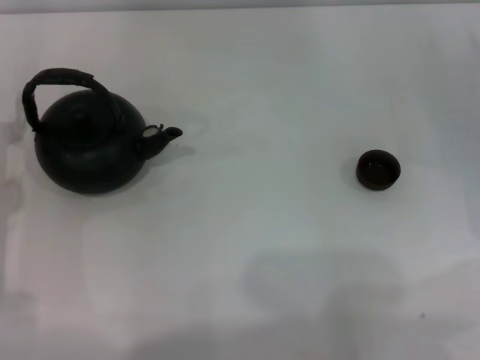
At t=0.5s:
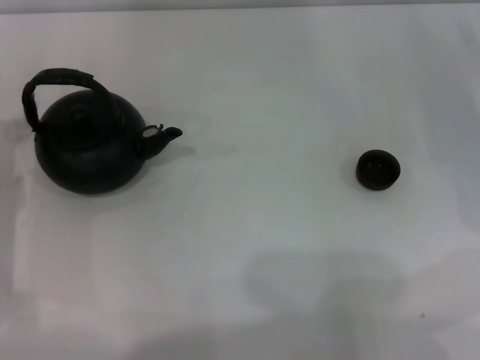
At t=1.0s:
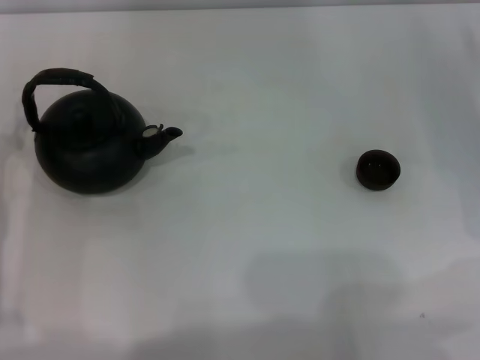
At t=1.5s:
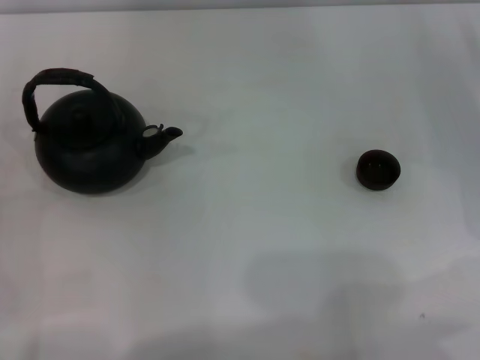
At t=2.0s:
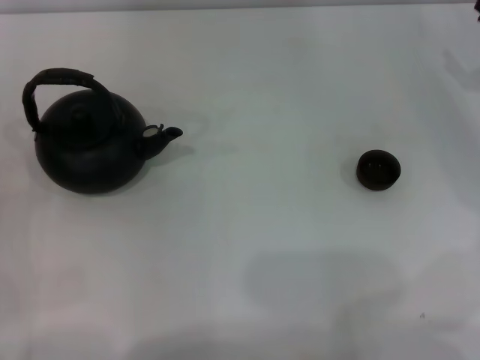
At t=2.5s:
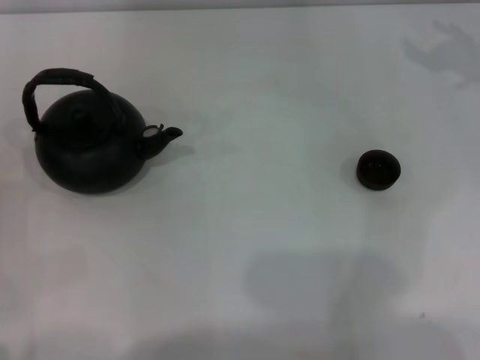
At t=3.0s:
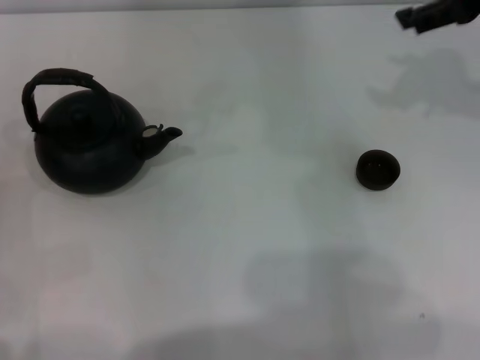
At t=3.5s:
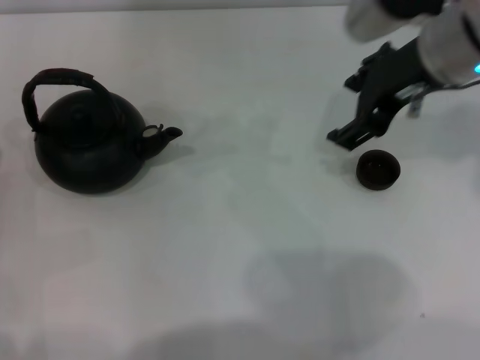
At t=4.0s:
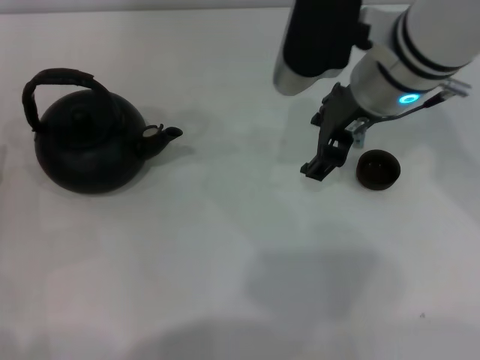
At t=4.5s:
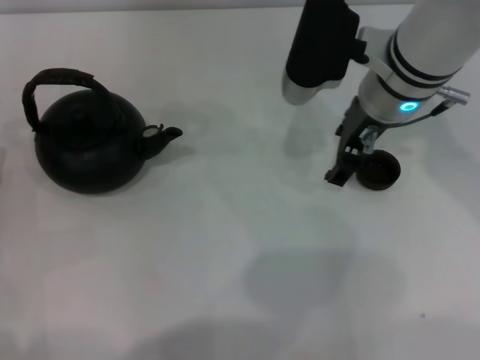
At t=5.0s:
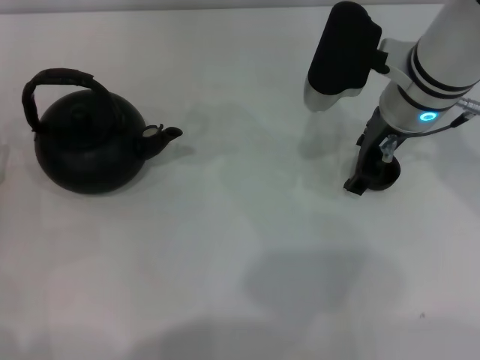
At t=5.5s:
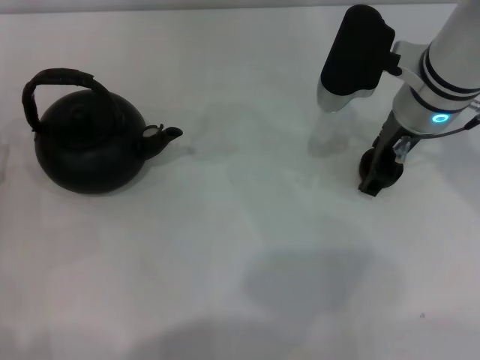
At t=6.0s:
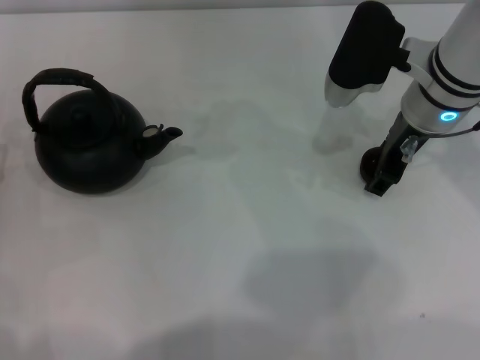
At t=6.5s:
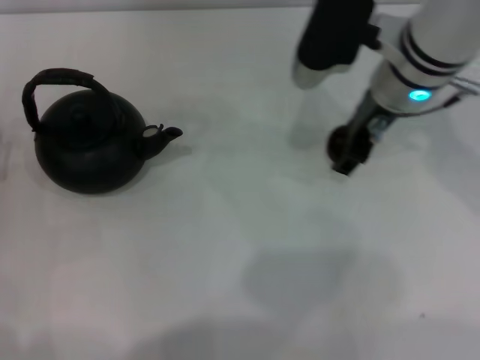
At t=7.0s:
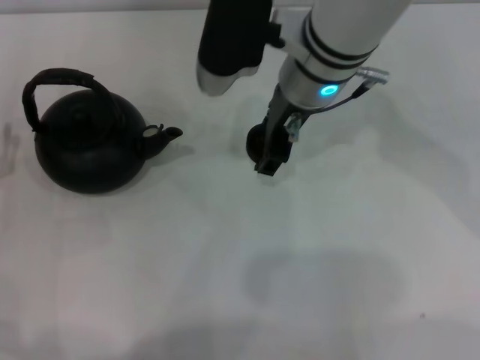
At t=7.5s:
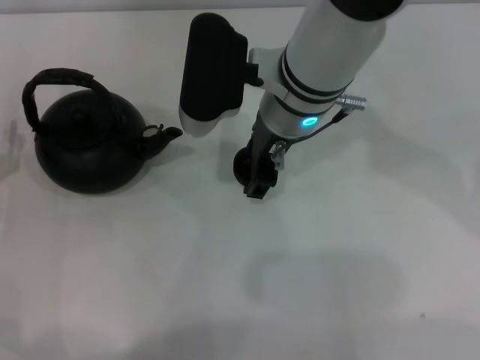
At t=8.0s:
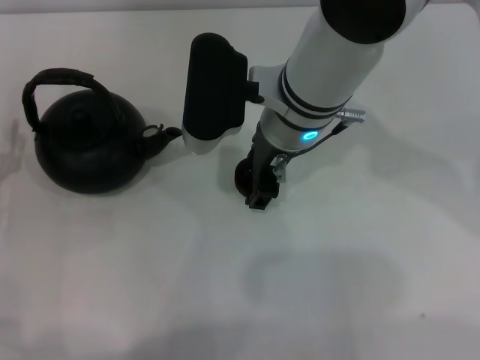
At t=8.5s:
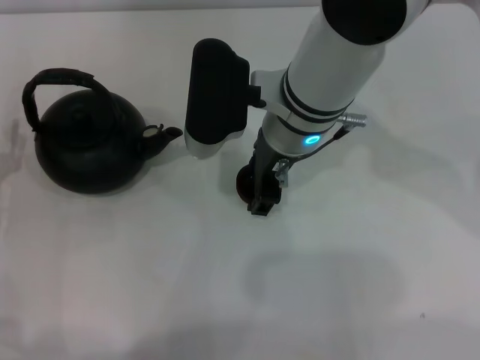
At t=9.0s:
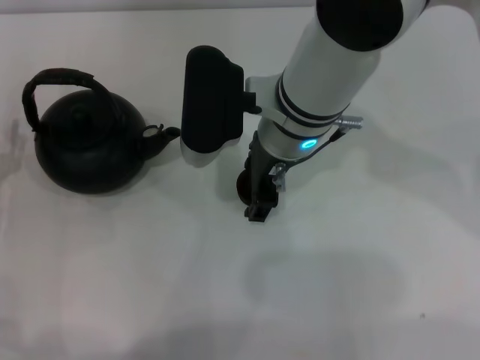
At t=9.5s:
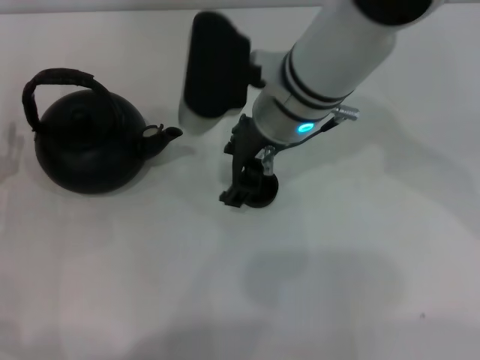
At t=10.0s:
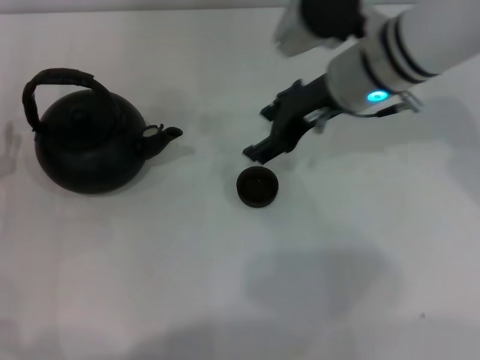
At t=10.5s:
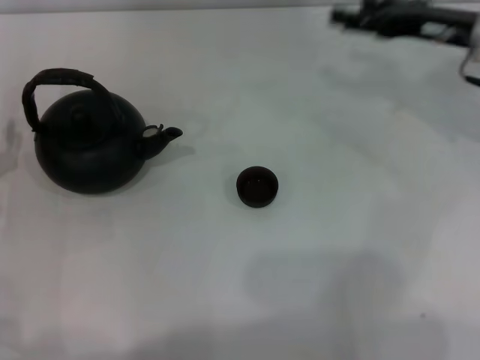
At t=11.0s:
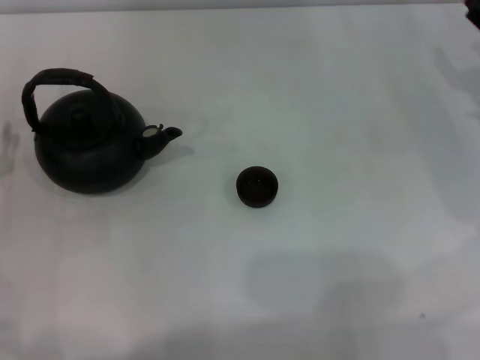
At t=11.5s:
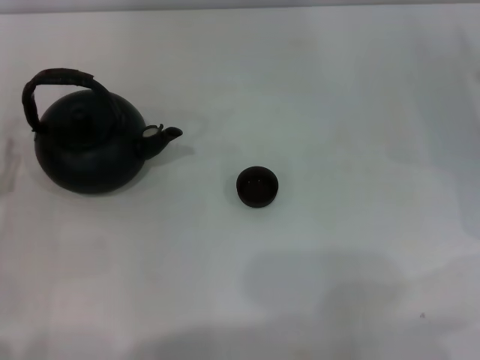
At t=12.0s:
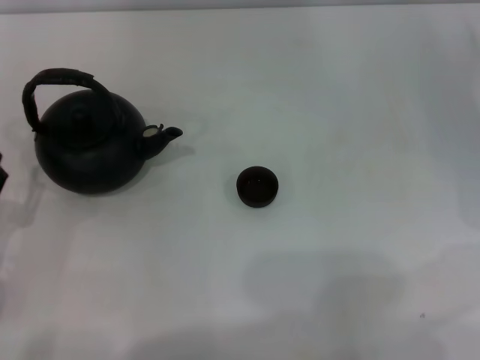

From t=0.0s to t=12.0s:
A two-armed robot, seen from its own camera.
Task of the whole recording: Grasp the handle of the teapot with one hand and pour tea into the teacup.
Step, from t=0.0s to t=6.0s: Pick up the teacup with the right gripper.
Step, from t=6.5s to t=9.5s: Place the teacup in the center of view with the right gripper.
From t=2.0s to t=4.0s: The right gripper travels to the left by roughly 25 cm.
From t=4.0s to t=6.0s: The right gripper is displaced to the right by some 5 cm.
From t=6.0s to t=8.0s: The right gripper is displaced to the left by some 15 cm.
From t=8.0s to t=10.0s: The right gripper goes approximately 10 cm to the right.
From t=10.0s to t=12.0s: The right gripper shifts some 25 cm to the right and downward; the left gripper travels backward by some 5 cm.

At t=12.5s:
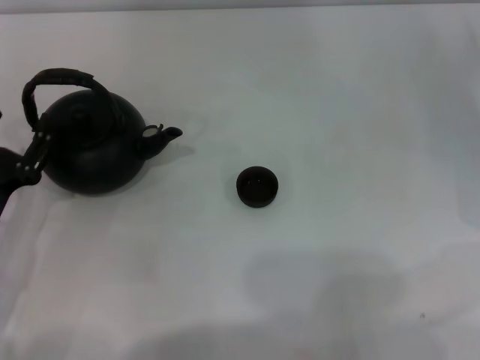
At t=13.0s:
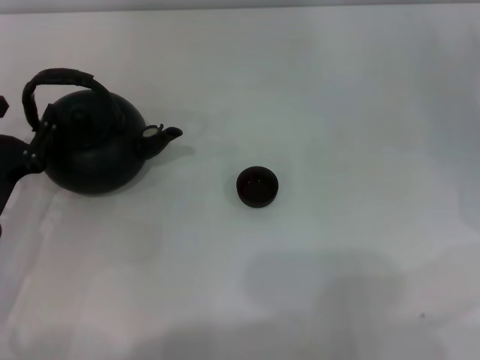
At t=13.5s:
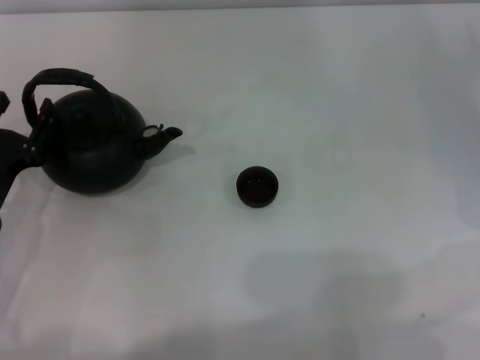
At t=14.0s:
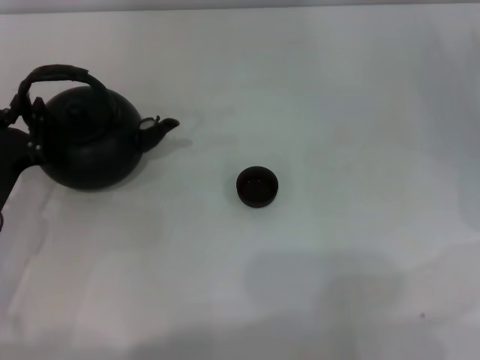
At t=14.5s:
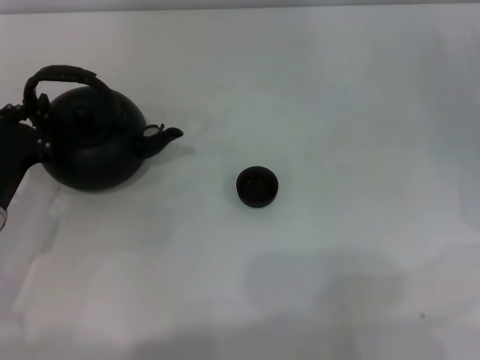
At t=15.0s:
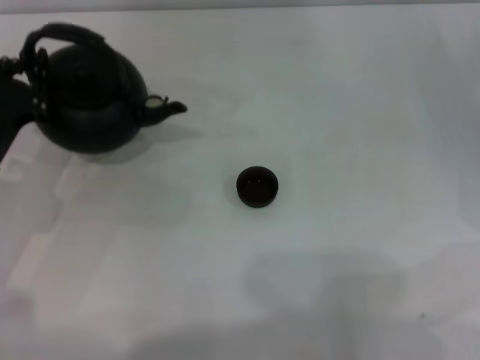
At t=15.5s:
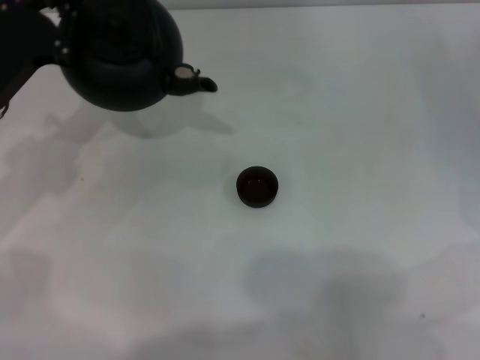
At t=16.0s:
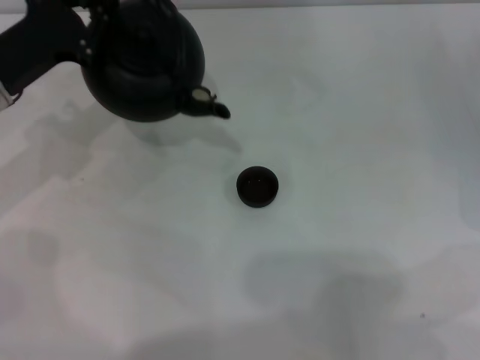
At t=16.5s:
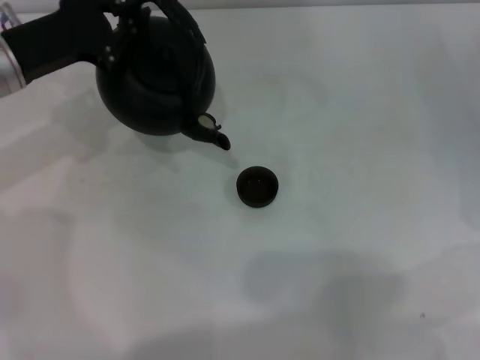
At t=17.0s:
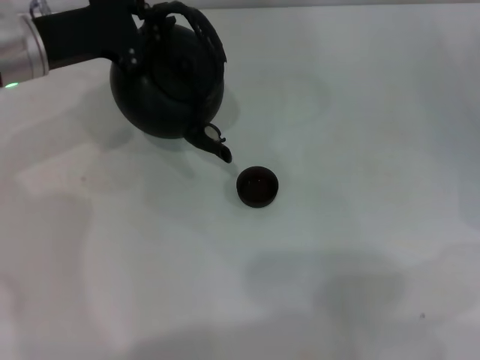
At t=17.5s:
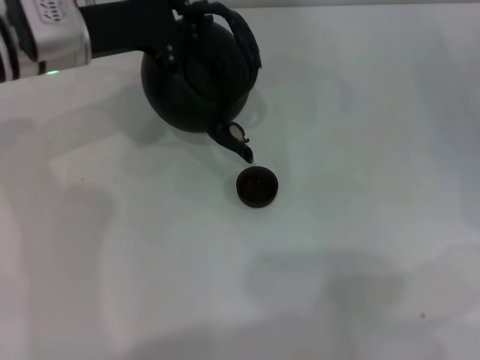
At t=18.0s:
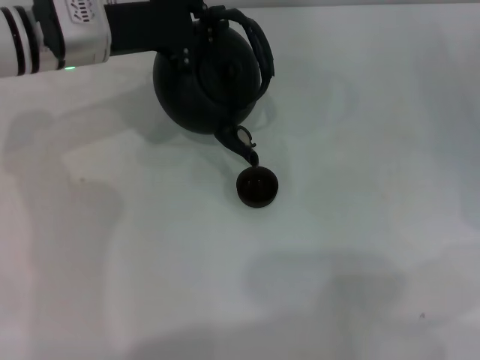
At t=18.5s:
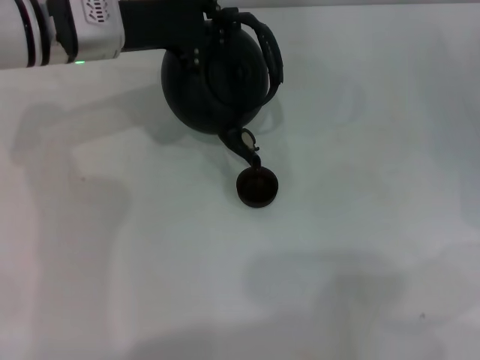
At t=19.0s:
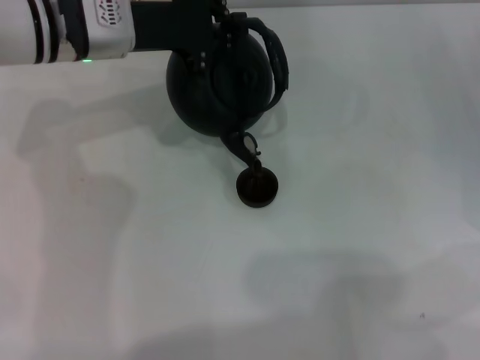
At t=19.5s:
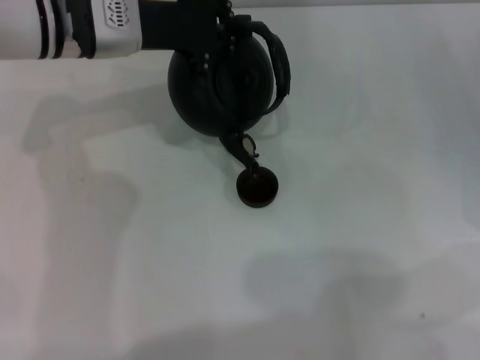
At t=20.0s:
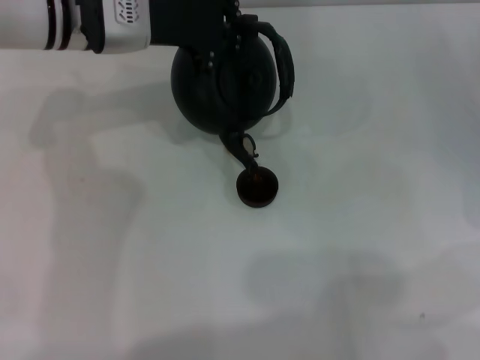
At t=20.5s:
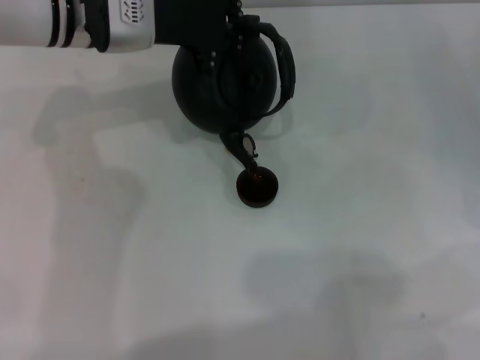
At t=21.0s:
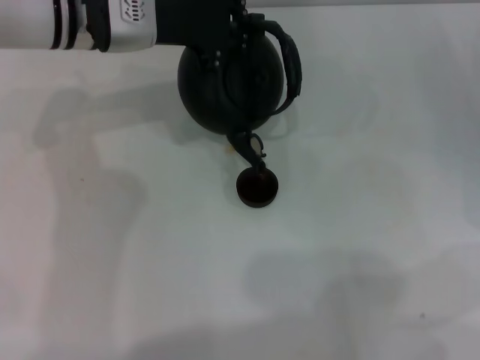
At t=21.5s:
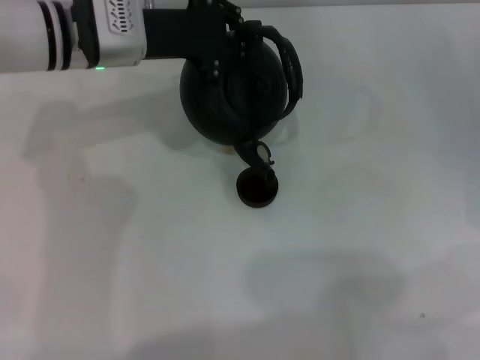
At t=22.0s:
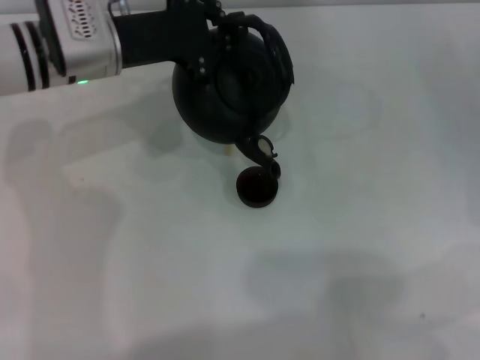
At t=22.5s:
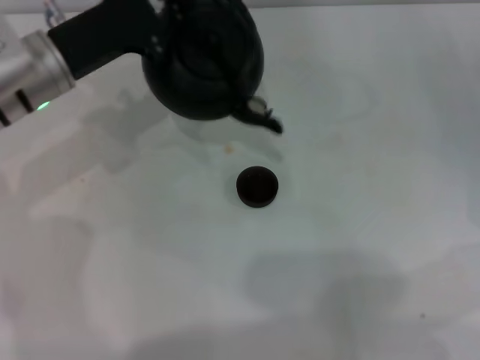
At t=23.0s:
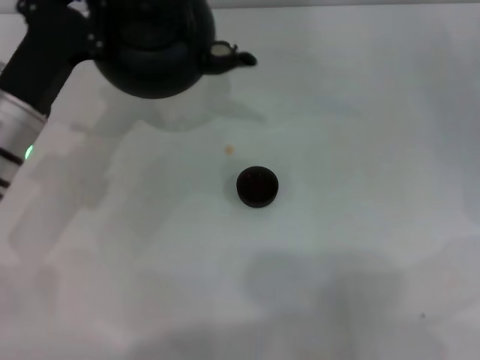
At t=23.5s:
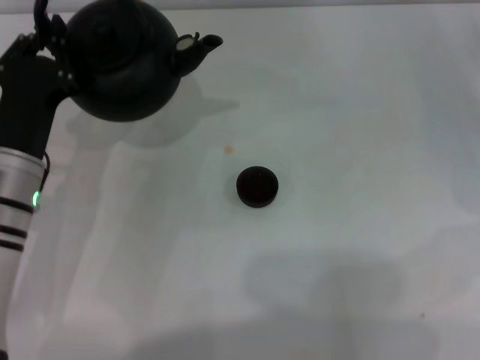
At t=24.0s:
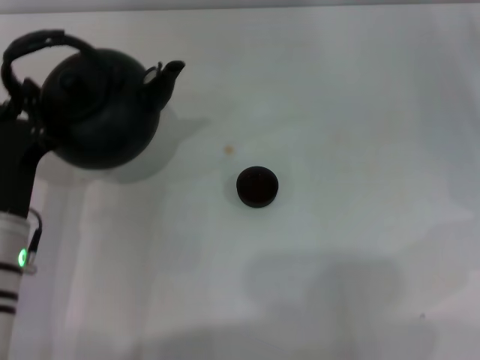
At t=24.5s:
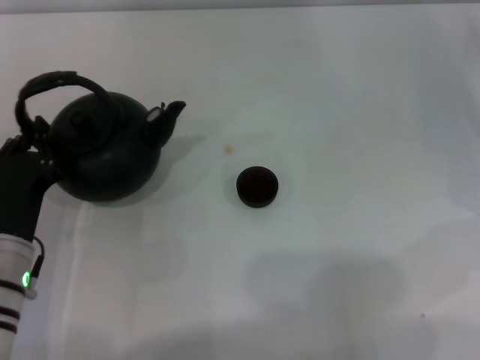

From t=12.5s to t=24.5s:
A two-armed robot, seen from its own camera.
Task of the whole recording: Grasp the handle of the teapot with one hand and pour tea into the teacup.
Step, from t=12.5s to t=14.5s: Pick up the teapot with the left gripper.
Step, from t=15.0s to t=22.0s: Pour tea into the teacup with the left gripper.
From t=12.5s to t=14.5s: The left gripper closes up.
From t=14.5s to t=16.5s: The left gripper travels forward and upward by some 15 cm.
From t=16.5s to t=18.5s: The left gripper shifts some 10 cm to the right.
From t=18.5s to t=20.5s: The grippers move only a little.
From t=20.5s to t=22.5s: The left gripper moves to the left and backward, some 10 cm.
From t=22.5s to t=24.5s: The left gripper goes about 20 cm backward and downward.

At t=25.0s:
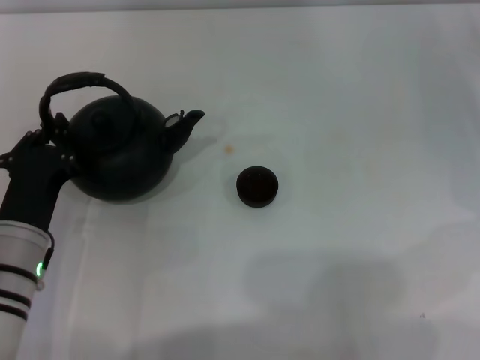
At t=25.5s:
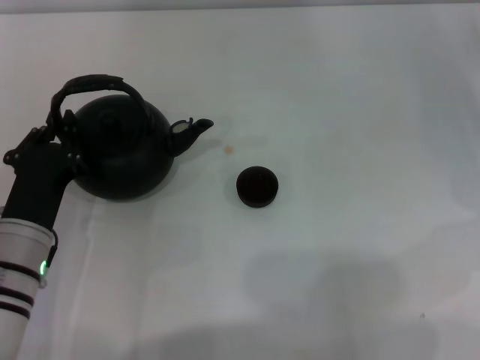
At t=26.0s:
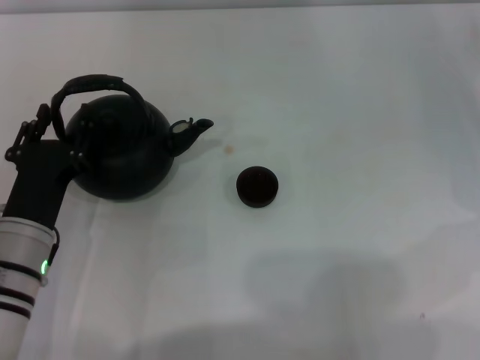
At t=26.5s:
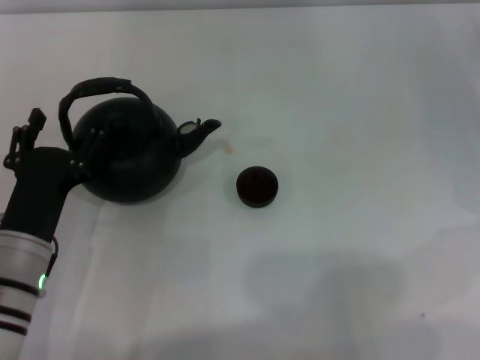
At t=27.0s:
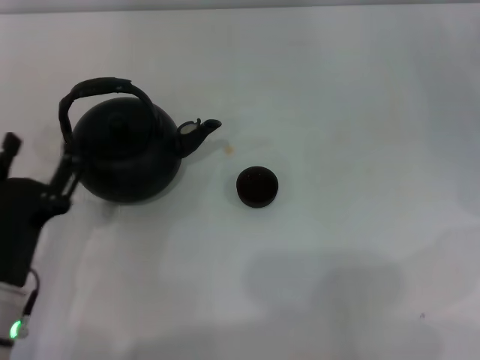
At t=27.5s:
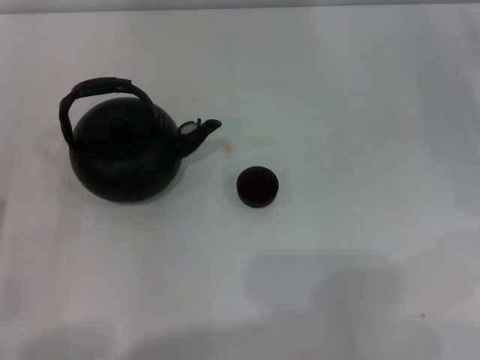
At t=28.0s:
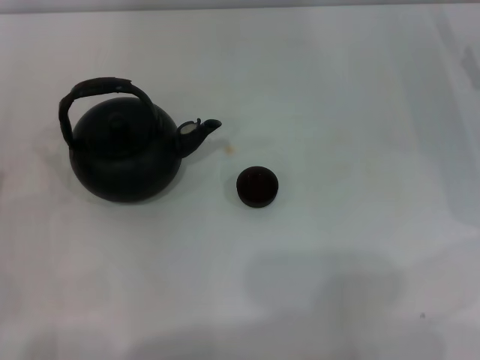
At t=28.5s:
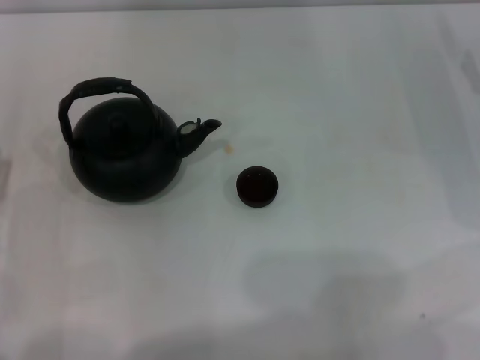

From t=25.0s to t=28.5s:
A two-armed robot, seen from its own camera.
Task of the whole recording: Grasp the handle of the teapot with one hand and pour tea into the teacup.
Step, from t=25.0s to t=27.0s: Put down the teapot with the left gripper.
From t=25.0s to t=27.0s: The left gripper goes roughly 5 cm backward, and opens its fingers.
From t=27.0s to t=28.5s: The left gripper shifts roughly 10 cm to the left.
